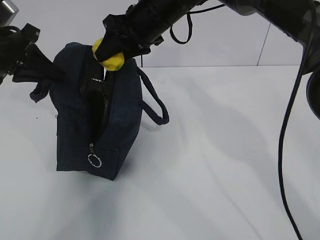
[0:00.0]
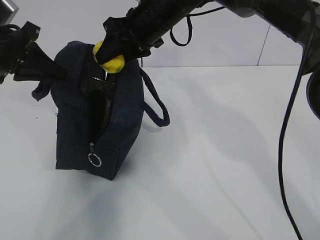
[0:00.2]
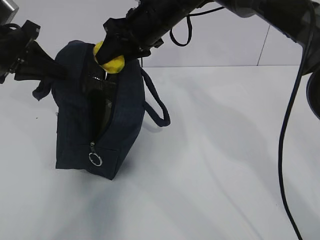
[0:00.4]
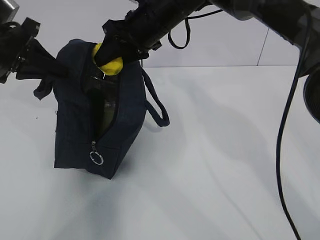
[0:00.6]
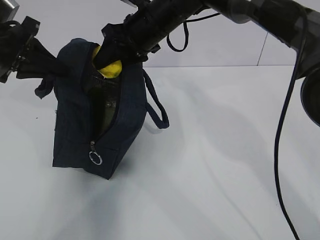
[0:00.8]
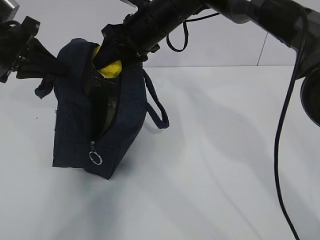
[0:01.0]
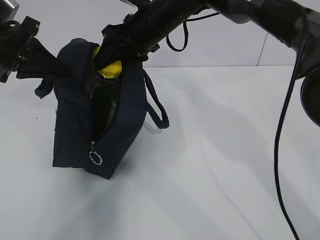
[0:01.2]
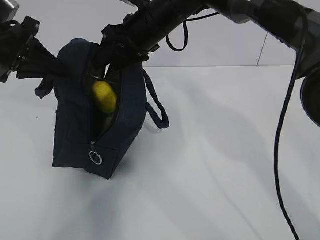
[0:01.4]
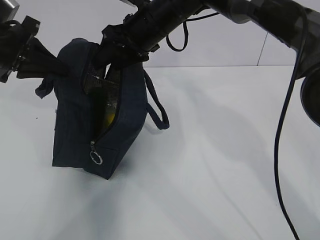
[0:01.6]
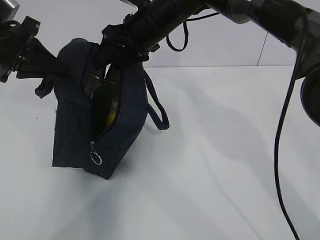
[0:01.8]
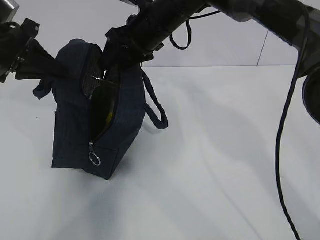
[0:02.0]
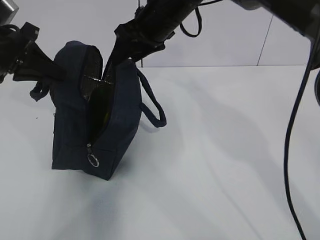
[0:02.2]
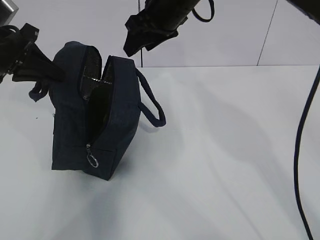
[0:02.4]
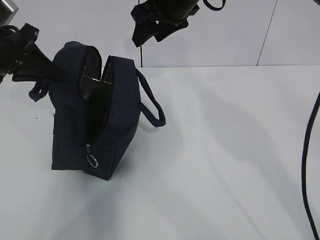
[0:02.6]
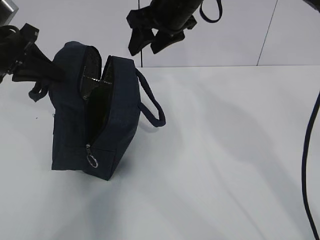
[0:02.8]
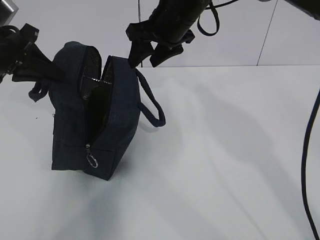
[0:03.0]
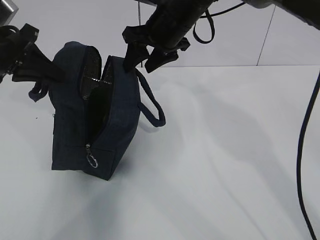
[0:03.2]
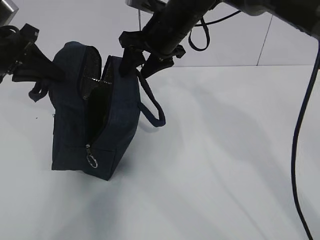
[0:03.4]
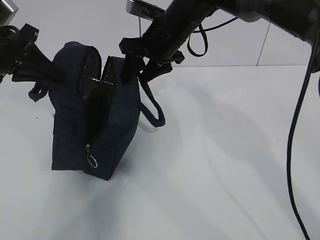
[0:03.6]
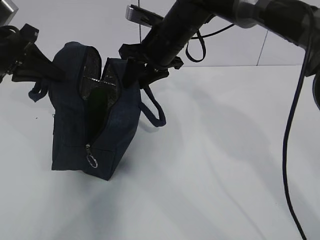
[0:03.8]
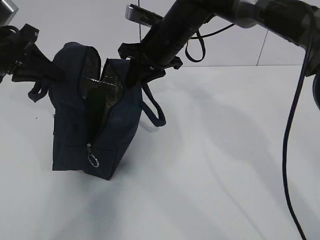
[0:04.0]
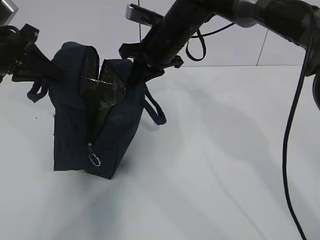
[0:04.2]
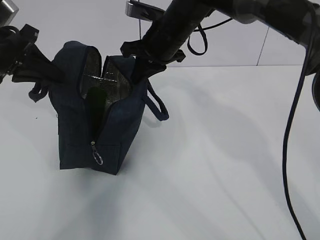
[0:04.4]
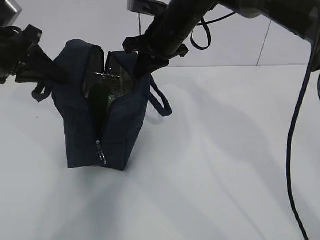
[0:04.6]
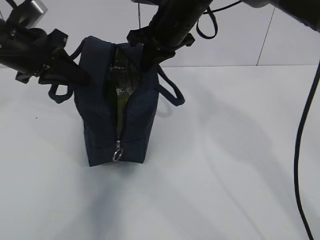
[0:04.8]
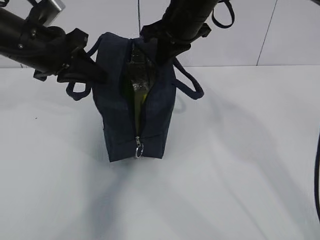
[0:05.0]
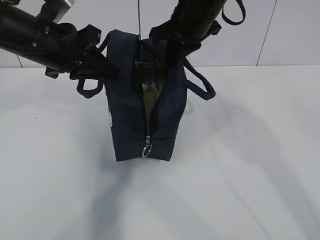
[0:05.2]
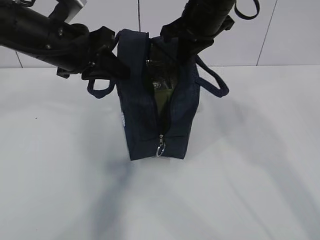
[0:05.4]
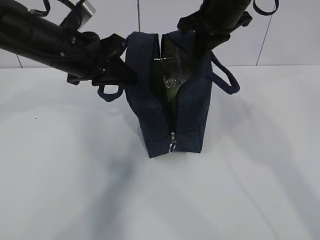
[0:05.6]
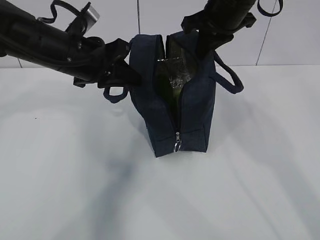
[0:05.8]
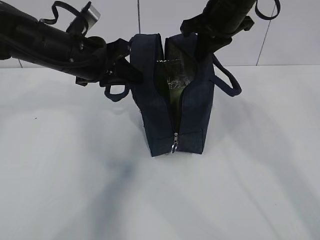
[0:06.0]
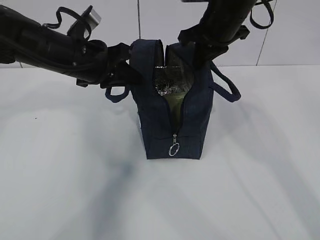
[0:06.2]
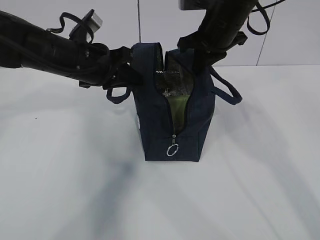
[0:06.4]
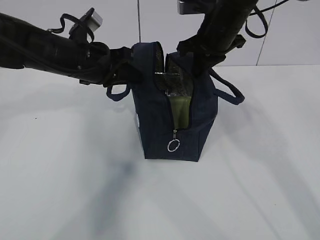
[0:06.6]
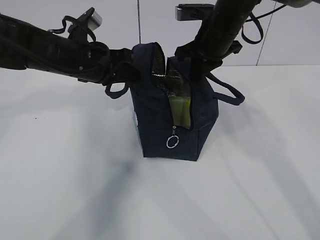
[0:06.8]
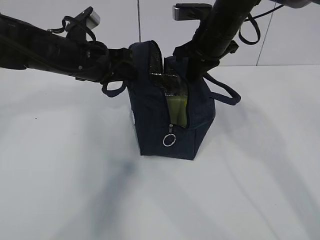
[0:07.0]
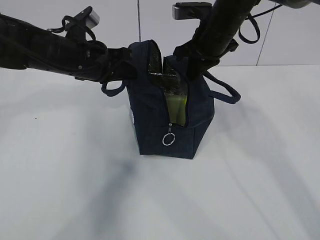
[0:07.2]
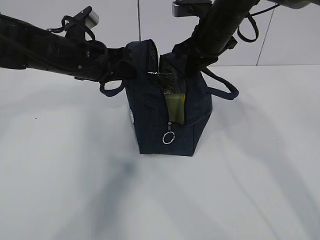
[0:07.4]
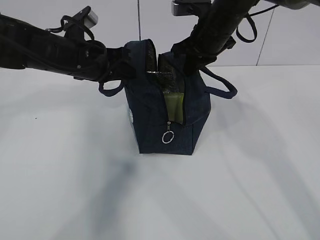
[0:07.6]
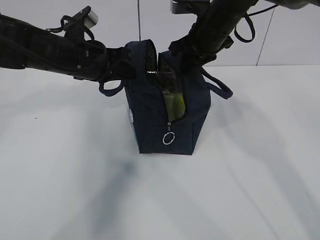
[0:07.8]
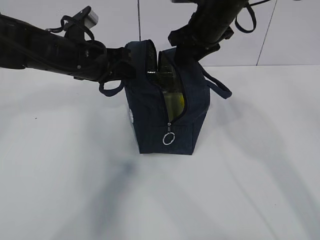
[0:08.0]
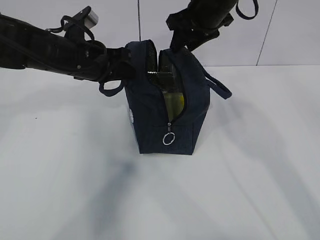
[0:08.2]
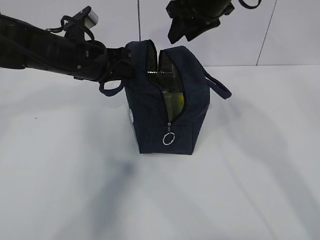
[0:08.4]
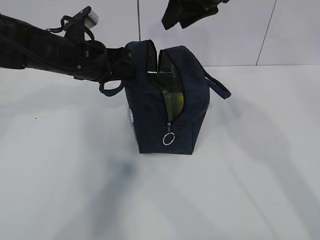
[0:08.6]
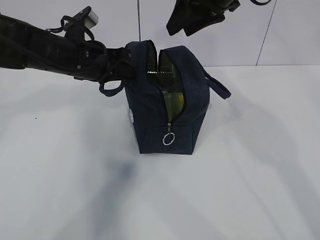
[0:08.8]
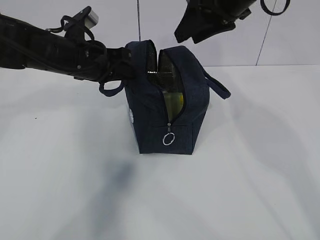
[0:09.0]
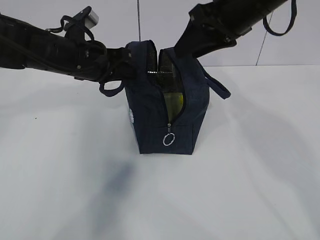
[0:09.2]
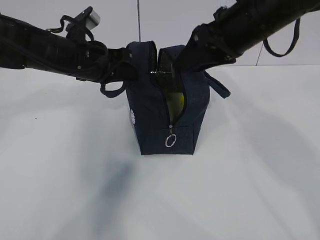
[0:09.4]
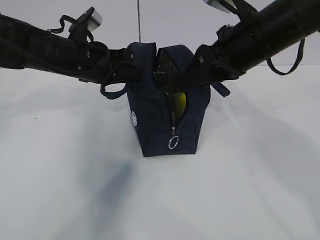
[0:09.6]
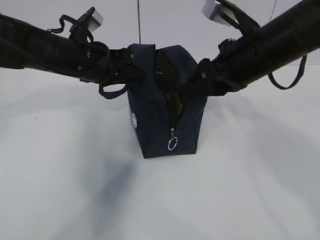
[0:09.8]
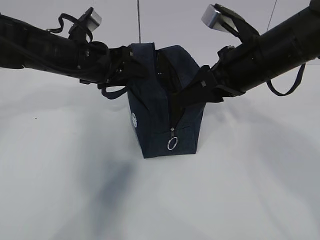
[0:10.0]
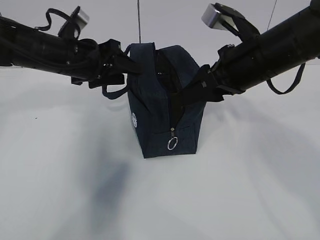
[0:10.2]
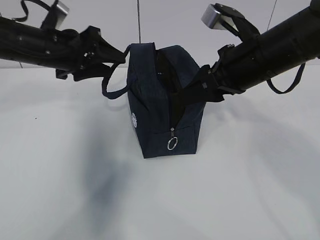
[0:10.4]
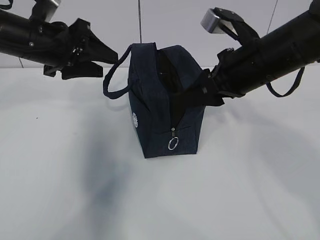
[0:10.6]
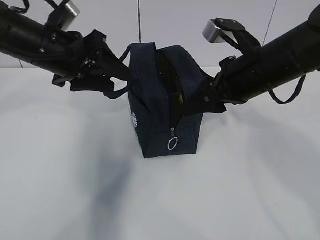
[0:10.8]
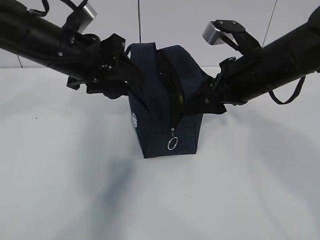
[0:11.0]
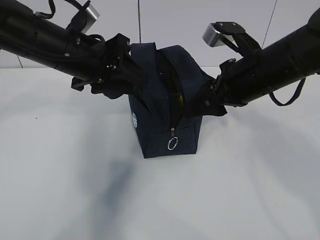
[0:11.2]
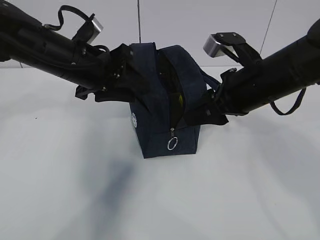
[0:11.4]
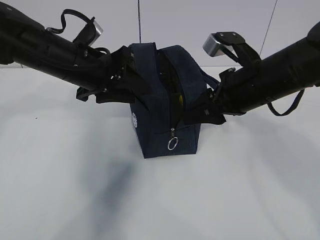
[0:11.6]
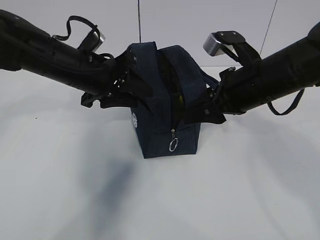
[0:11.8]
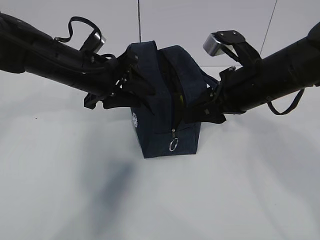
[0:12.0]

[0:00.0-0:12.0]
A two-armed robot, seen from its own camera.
0:00.0 to 0:01.6: The grippers move only a little.
0:03.0 to 0:04.4: The right gripper closes its fingers.
0:04.4 to 0:06.0: The left gripper moves to the right, some 15 cm; the right gripper moves to the right and upward, about 10 cm.
0:06.0 to 0:07.6: The right gripper shifts some 5 cm downward.
0:07.6 to 0:09.0: The right gripper is displaced upward and backward by about 10 cm, and opens its fingers.
0:09.0 to 0:10.4: The right gripper heads downward and backward, covering some 10 cm; the left gripper opens up.
0:10.4 to 0:12.0: The left gripper is displaced to the right by approximately 5 cm.

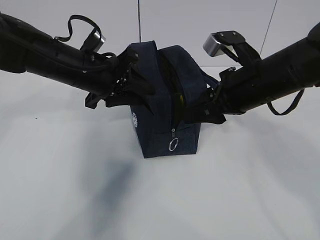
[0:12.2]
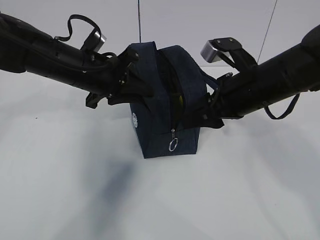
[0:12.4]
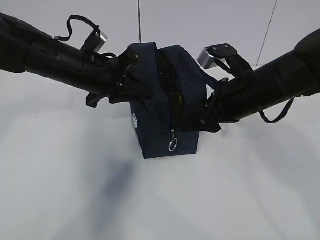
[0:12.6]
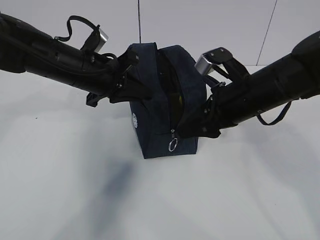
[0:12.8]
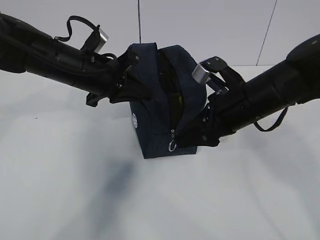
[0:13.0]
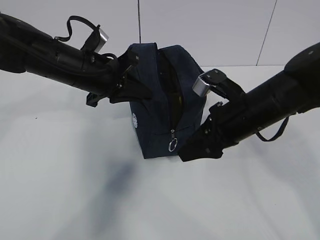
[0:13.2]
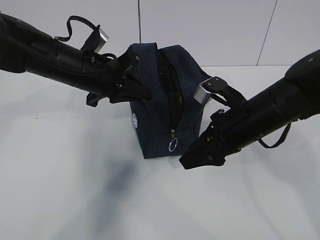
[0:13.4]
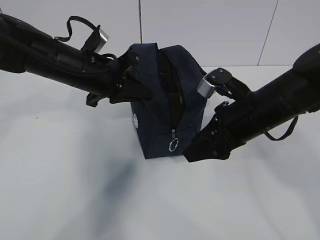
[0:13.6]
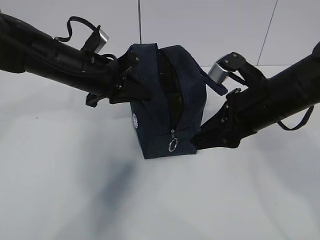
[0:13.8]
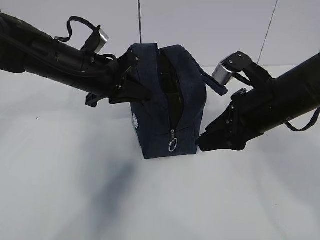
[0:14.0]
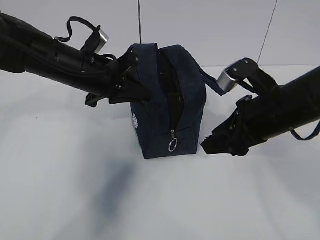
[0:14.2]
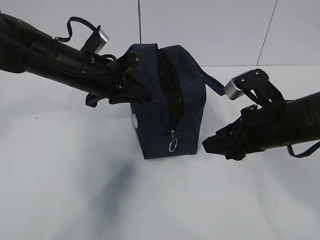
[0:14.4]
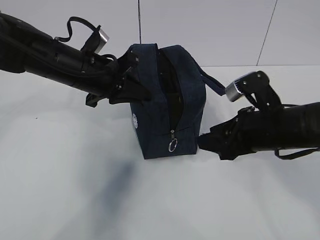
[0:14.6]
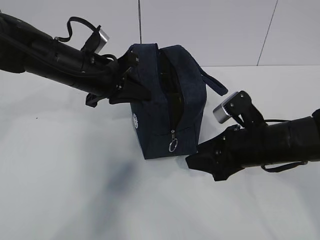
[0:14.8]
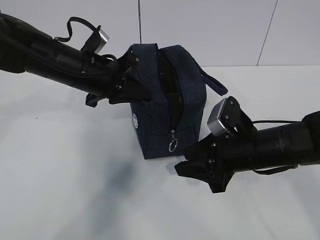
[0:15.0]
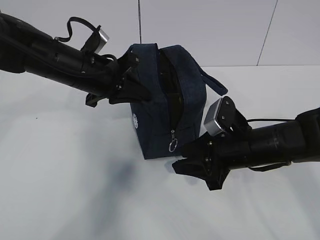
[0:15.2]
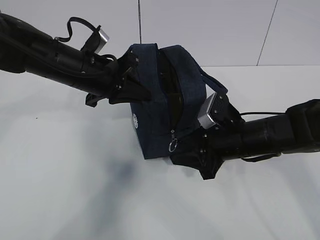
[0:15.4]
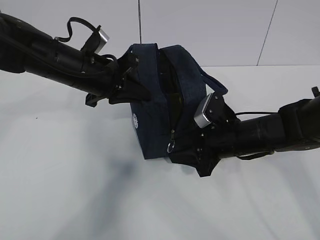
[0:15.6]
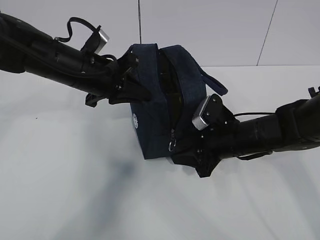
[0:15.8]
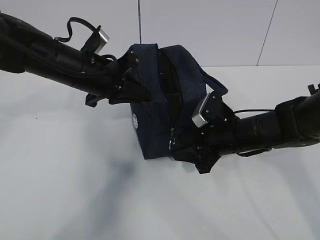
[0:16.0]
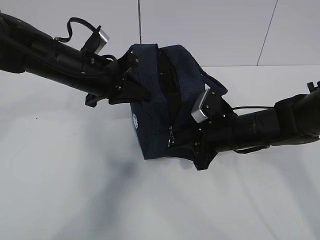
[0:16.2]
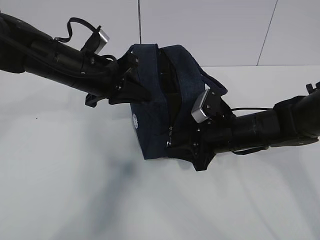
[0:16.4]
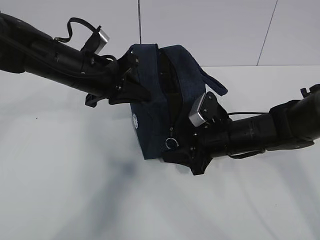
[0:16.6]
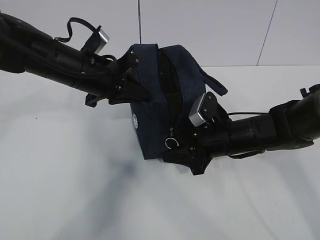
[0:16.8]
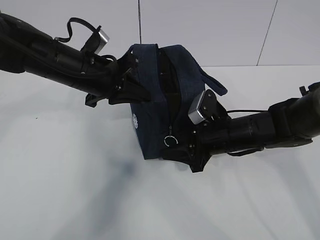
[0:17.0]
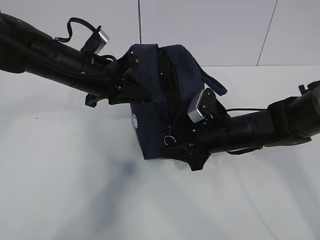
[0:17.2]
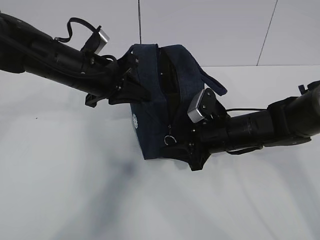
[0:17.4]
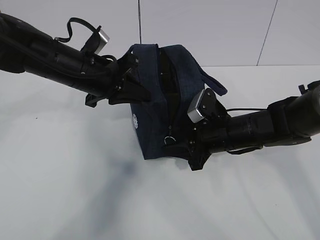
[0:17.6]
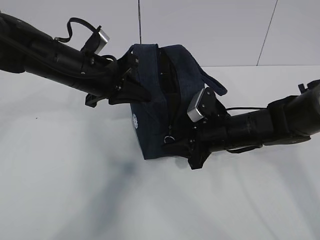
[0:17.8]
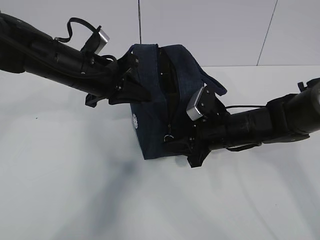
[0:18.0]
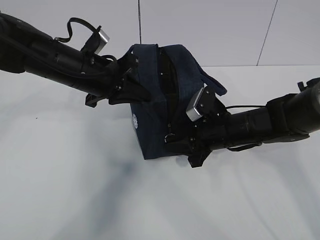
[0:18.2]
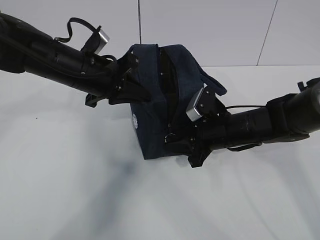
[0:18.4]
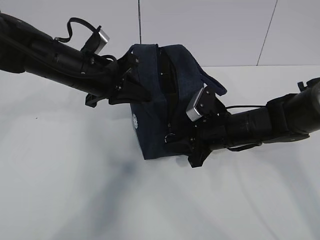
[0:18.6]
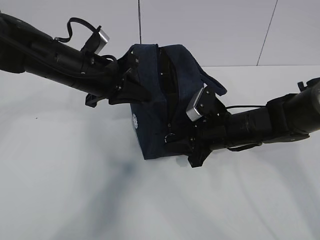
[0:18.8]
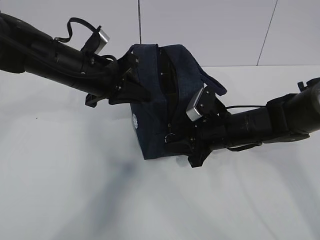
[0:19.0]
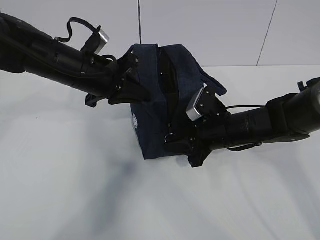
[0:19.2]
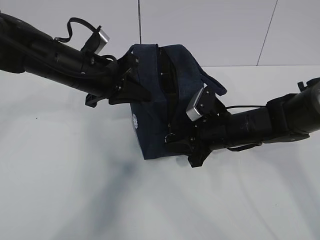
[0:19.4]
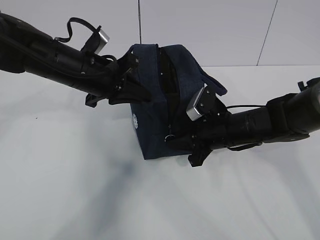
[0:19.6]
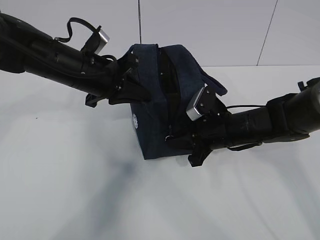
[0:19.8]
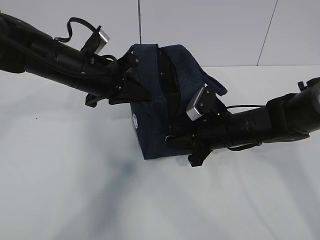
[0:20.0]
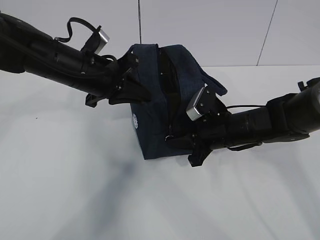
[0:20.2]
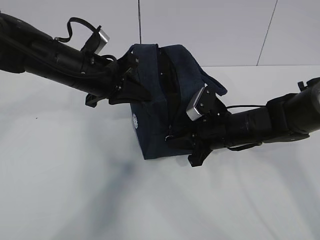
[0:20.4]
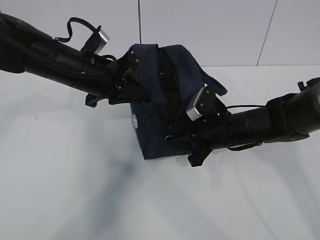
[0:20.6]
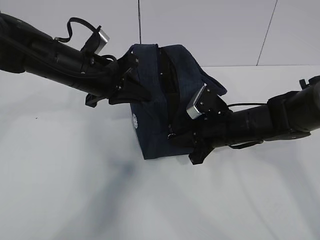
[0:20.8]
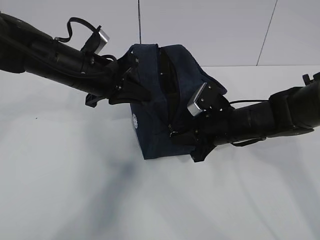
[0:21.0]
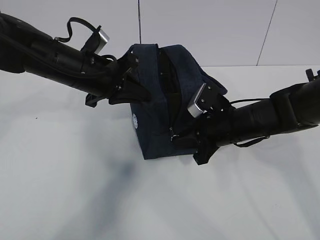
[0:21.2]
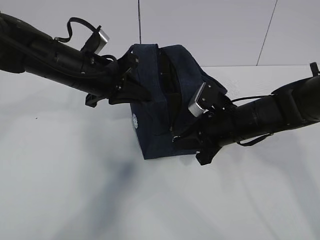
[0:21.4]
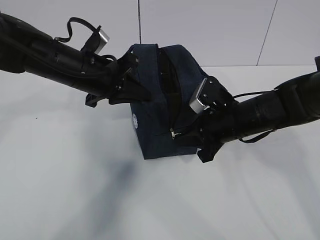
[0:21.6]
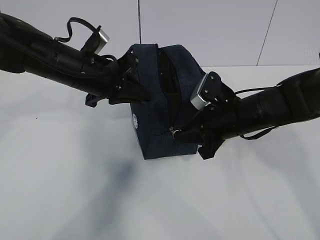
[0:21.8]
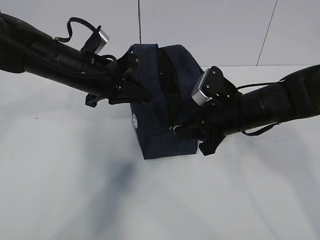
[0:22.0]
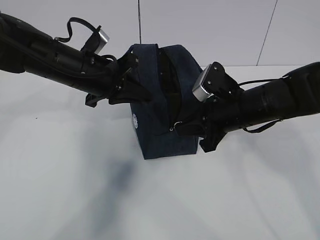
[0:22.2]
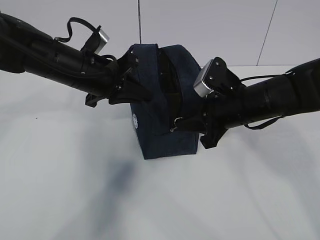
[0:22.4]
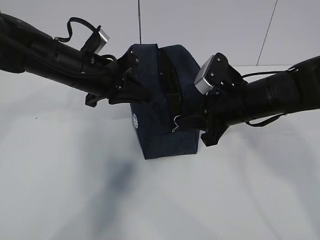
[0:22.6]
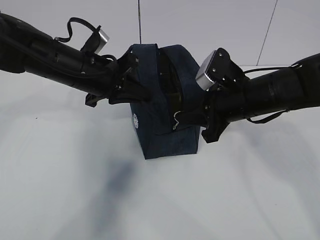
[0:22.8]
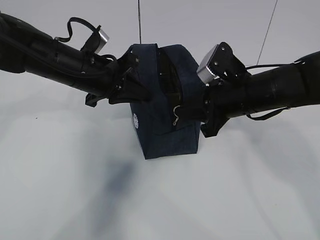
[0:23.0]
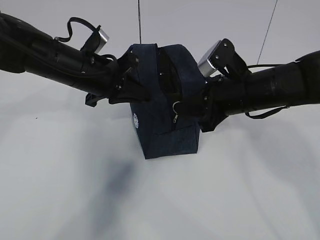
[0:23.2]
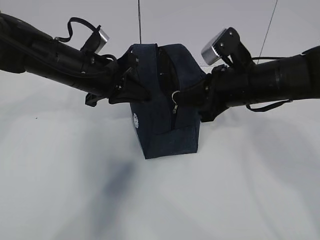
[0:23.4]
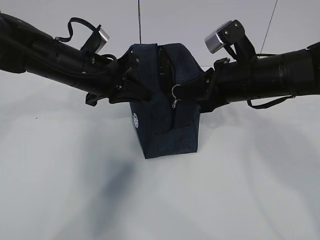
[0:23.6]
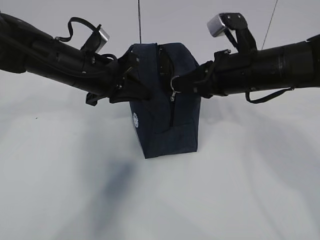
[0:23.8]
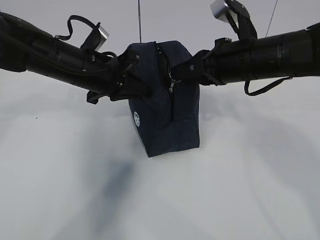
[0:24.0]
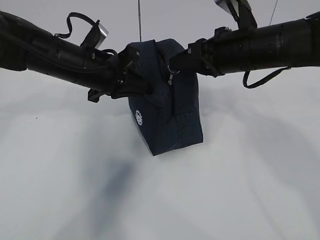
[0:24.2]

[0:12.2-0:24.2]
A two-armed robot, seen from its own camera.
Step, 0:12.2 to 0:20.0: Pull the zipper with your right hand.
0:12.2 to 0:13.8: The left gripper closes up.
0:13.8 to 0:15.2: The right gripper moves downward, some 10 cm.
0:15.2 to 0:16.6: The right gripper ends up roughly 5 cm from where it was.
0:16.6 to 0:18.2: The two grippers keep their place.
0:19.8 to 0:21.2: The grippers make only small movements.
0:21.2 to 0:22.6: The right gripper goes about 5 cm upward.
0:22.6 to 0:24.2: The right gripper heads upward, covering approximately 10 cm.
